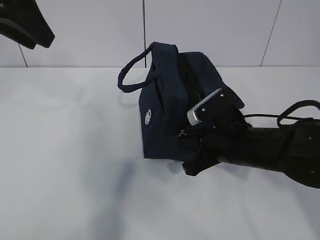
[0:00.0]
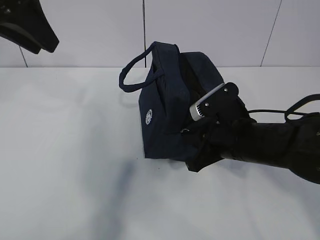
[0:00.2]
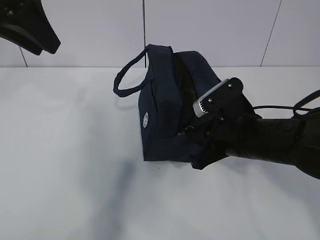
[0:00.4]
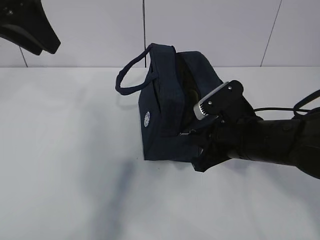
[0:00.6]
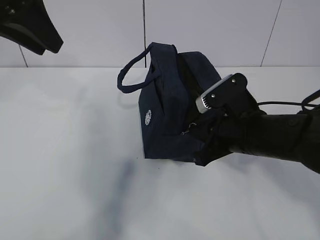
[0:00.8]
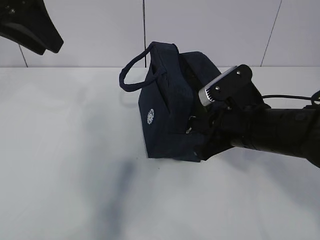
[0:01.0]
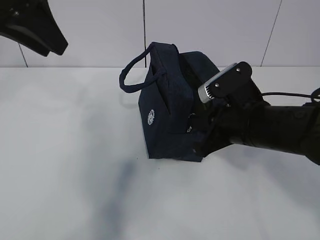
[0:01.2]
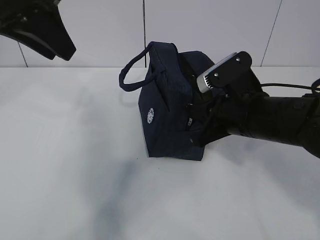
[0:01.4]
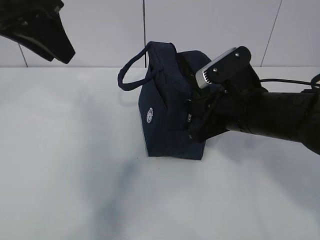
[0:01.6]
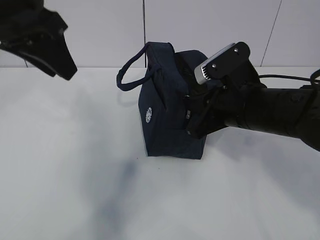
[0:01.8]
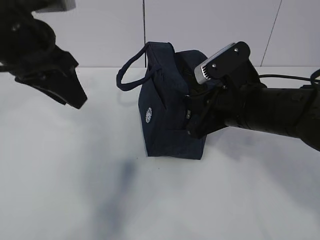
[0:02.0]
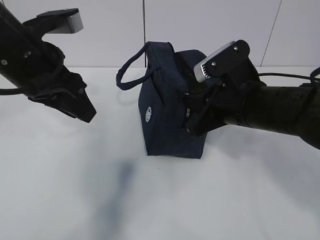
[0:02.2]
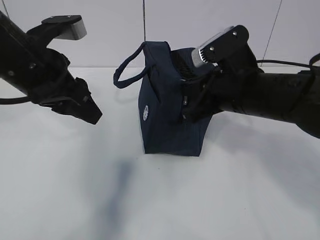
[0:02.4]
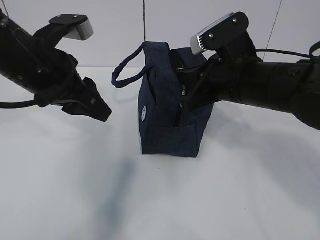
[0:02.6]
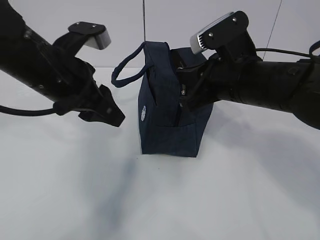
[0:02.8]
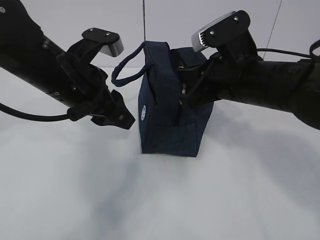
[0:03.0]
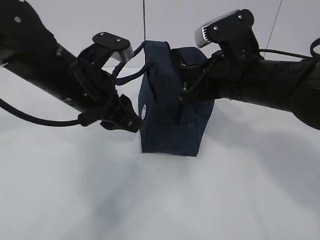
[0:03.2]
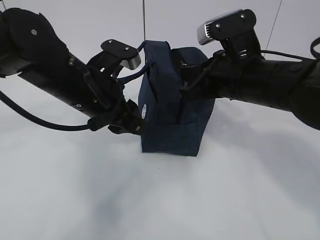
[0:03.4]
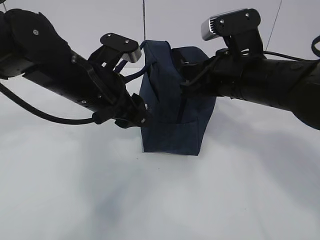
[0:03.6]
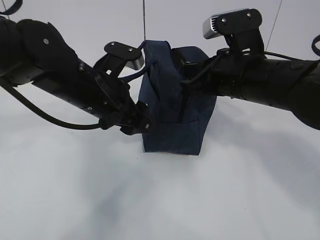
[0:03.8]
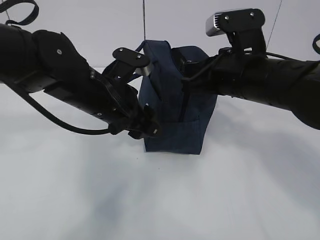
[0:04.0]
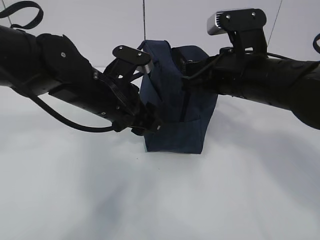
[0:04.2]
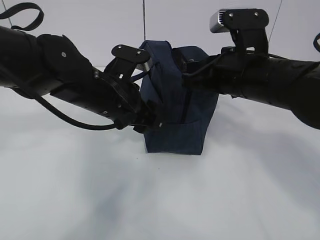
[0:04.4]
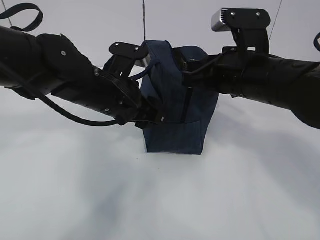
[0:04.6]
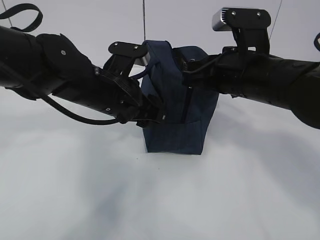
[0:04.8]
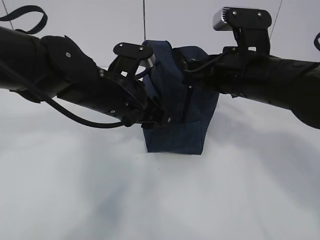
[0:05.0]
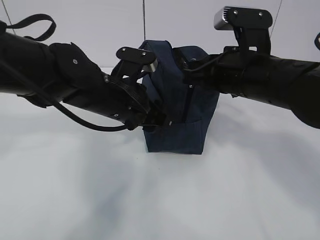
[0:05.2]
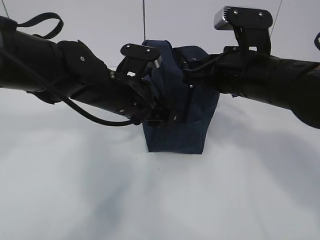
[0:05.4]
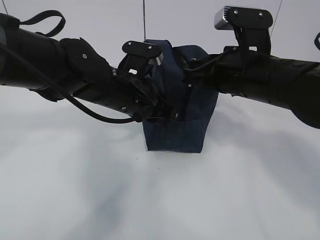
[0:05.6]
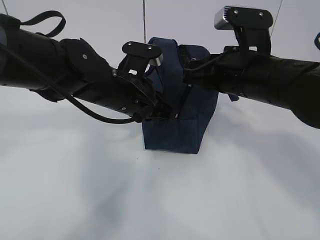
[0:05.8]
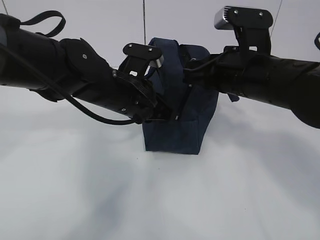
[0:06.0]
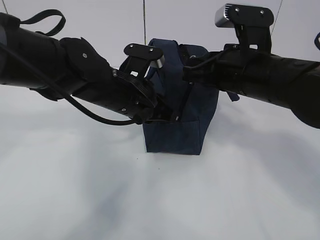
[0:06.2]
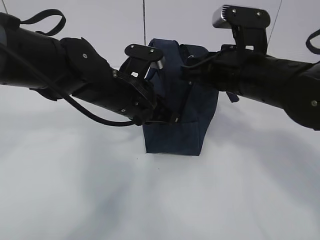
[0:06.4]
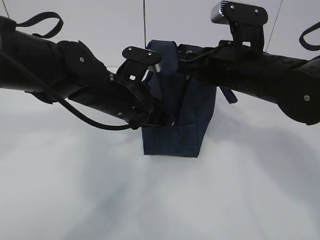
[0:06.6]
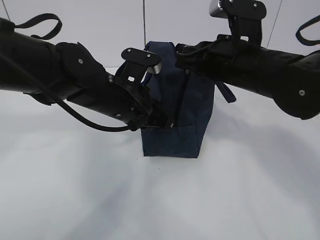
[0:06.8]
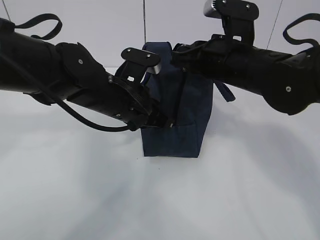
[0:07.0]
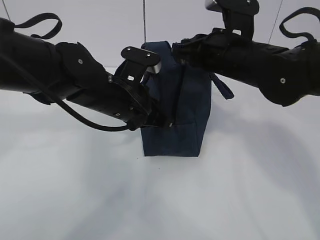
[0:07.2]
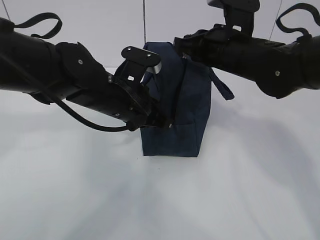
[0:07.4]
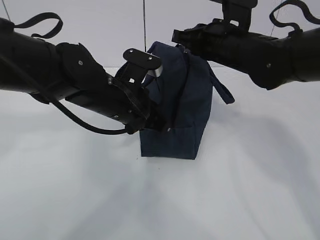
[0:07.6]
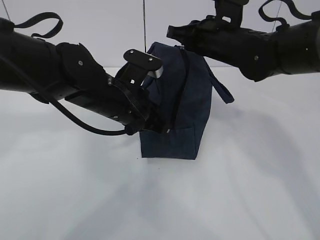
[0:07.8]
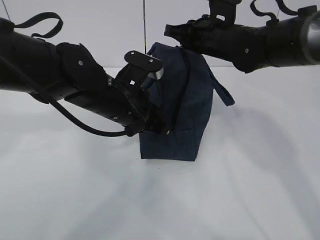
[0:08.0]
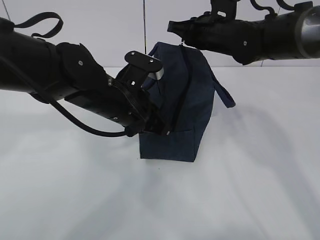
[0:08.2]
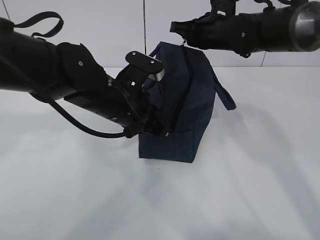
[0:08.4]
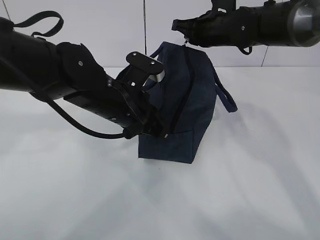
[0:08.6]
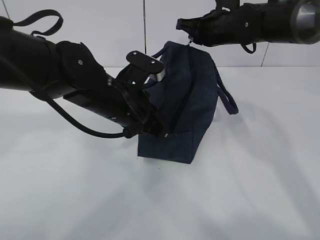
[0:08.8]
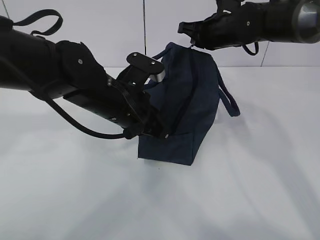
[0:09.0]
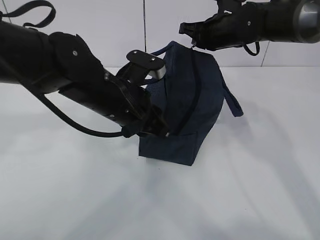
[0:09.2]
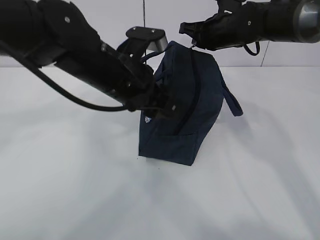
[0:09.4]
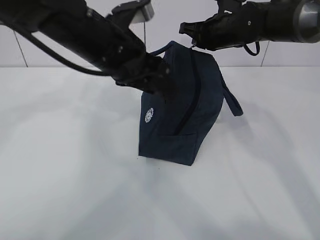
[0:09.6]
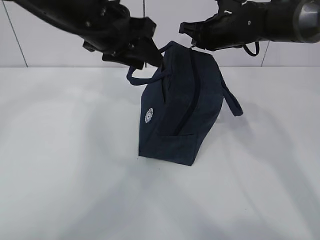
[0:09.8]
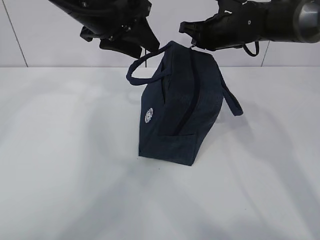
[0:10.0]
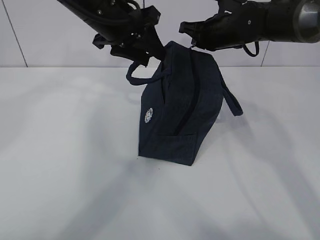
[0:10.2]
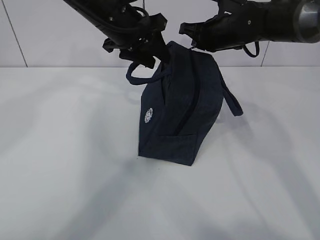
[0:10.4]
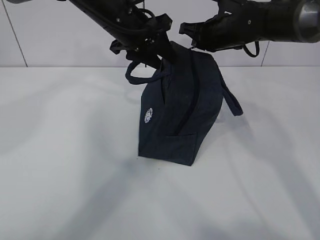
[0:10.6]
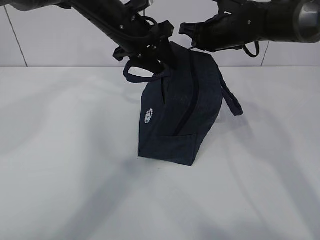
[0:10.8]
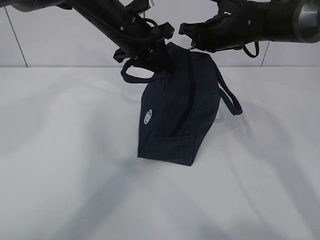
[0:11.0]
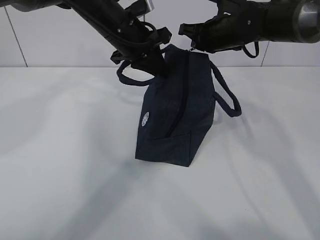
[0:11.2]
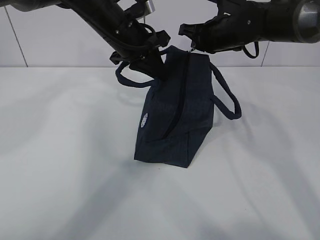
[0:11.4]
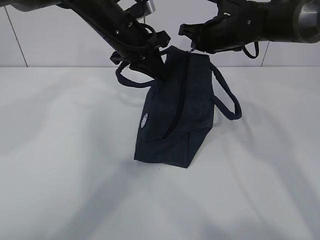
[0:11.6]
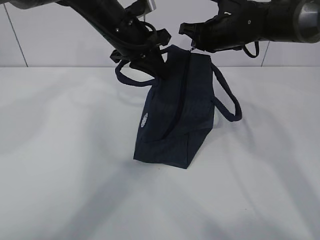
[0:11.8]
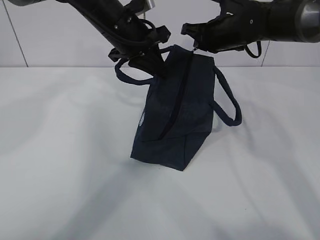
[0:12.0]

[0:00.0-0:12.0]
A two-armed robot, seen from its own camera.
Step, 0:00.0 to 0:05.4: Pull the zipper with your right hand.
Step, 0:05.6 to 0:06.0: Grab the lunch bag with your left hand.
0:00.0 to 0:01.6: The right gripper goes roughly 5 cm upward.
0:01.6 to 0:03.0: The left gripper heads downward, covering some 15 cm.
0:03.0 to 0:04.4: The left gripper moves roughly 5 cm.
0:04.4 to 0:06.0: The left gripper closes up.
0:06.0 to 0:07.6: The right gripper shifts about 10 cm forward.
0:07.6 to 0:09.0: The right gripper heads forward, covering some 10 cm.
0:09.0 to 0:10.4: The left gripper shifts roughly 15 cm forward and upward, and opens its fingers.
0:10.4 to 0:12.0: The left gripper closes.

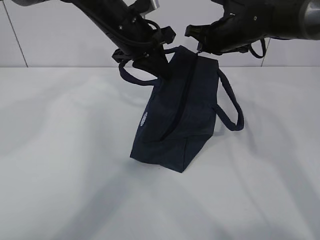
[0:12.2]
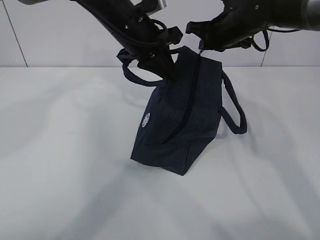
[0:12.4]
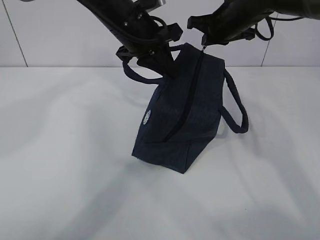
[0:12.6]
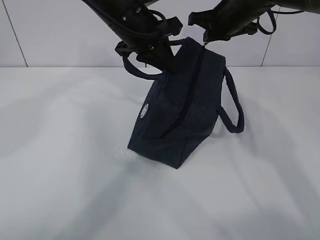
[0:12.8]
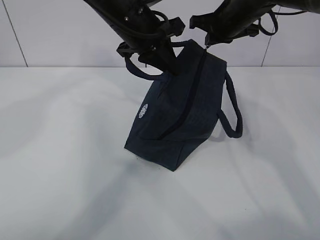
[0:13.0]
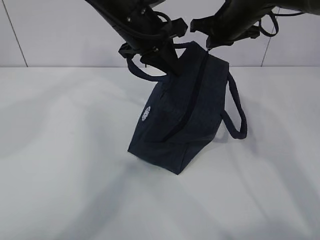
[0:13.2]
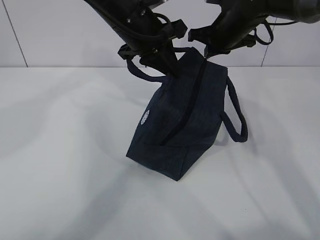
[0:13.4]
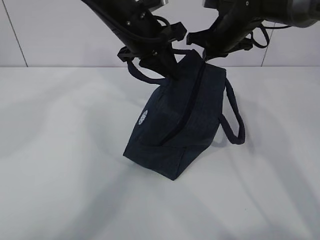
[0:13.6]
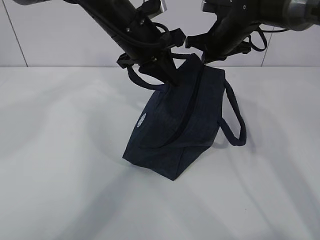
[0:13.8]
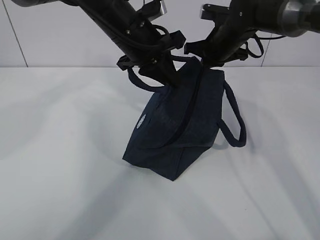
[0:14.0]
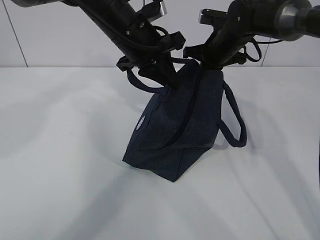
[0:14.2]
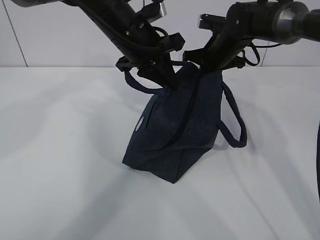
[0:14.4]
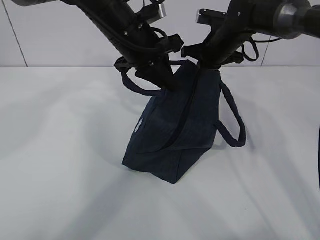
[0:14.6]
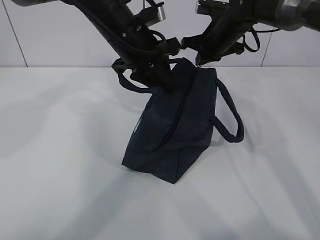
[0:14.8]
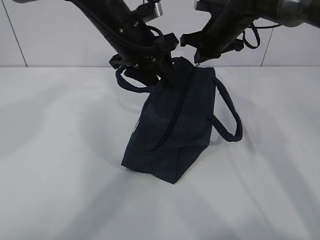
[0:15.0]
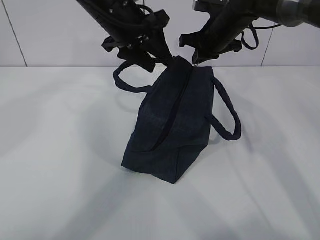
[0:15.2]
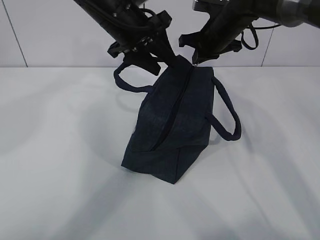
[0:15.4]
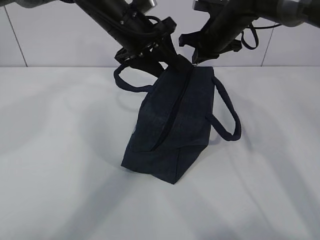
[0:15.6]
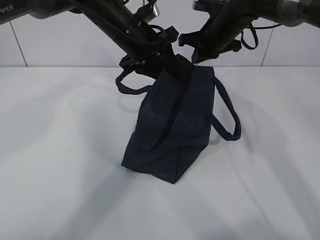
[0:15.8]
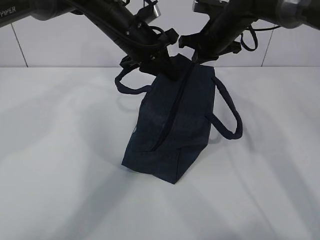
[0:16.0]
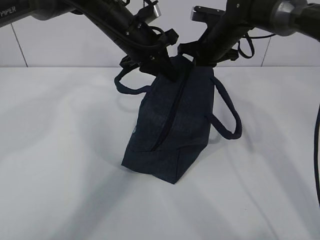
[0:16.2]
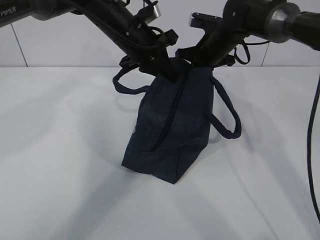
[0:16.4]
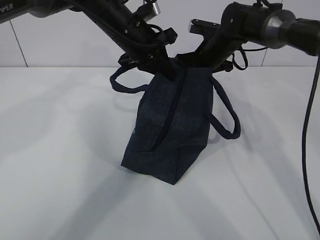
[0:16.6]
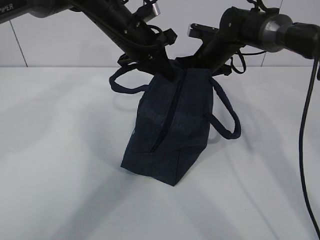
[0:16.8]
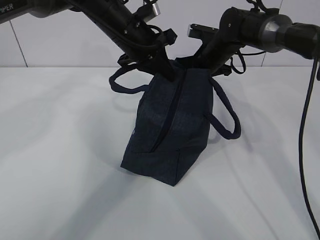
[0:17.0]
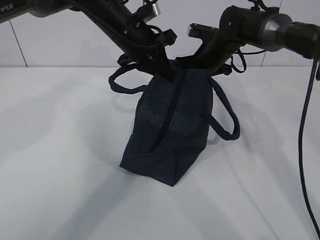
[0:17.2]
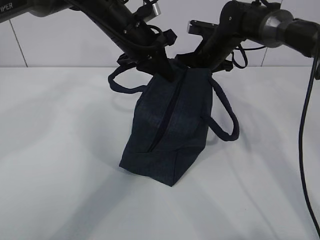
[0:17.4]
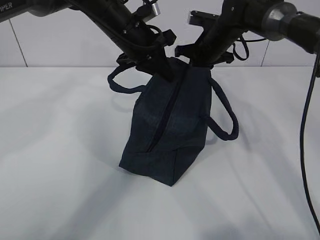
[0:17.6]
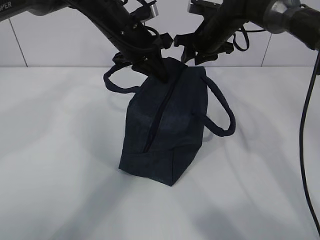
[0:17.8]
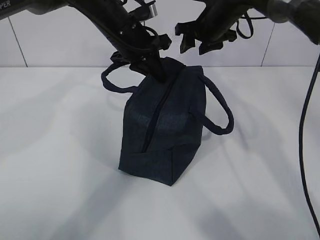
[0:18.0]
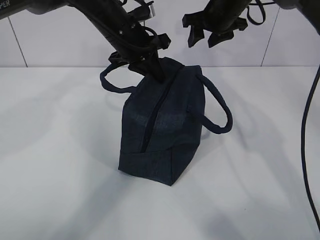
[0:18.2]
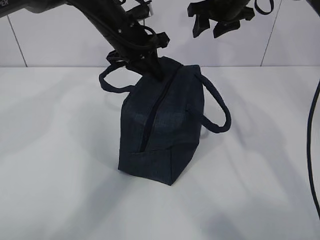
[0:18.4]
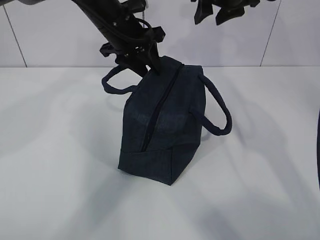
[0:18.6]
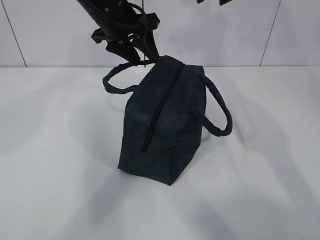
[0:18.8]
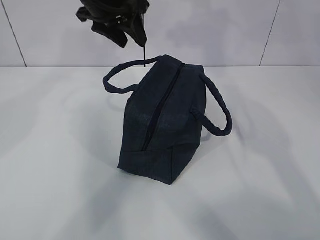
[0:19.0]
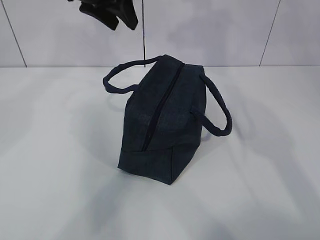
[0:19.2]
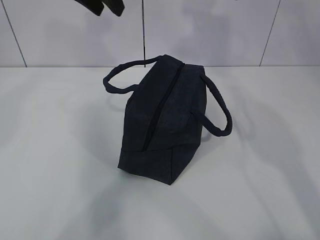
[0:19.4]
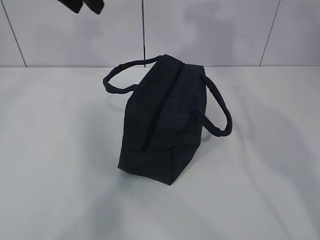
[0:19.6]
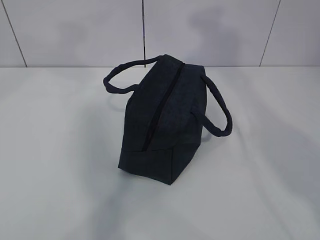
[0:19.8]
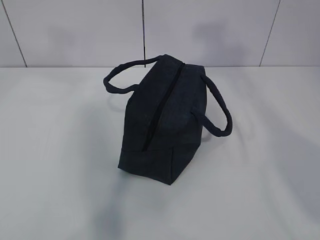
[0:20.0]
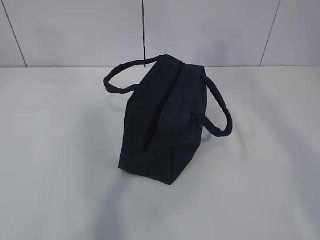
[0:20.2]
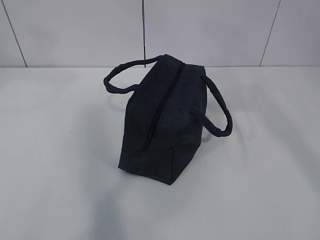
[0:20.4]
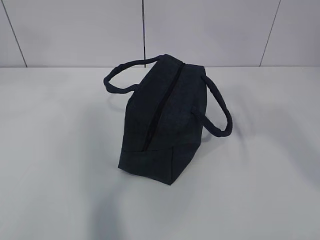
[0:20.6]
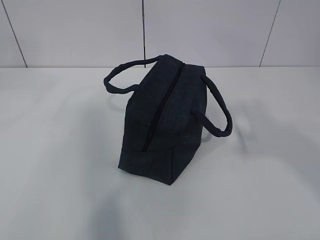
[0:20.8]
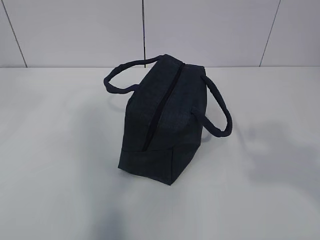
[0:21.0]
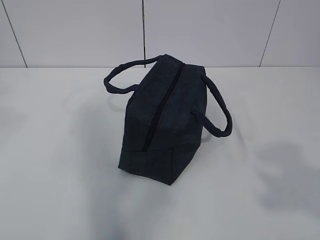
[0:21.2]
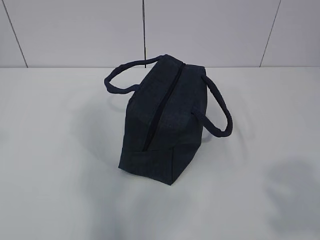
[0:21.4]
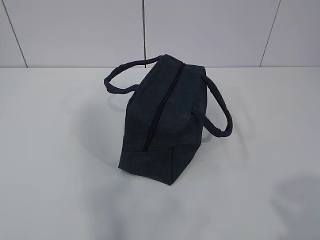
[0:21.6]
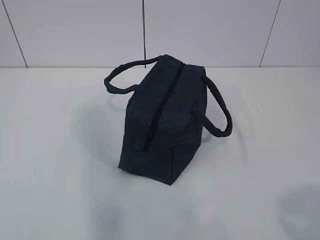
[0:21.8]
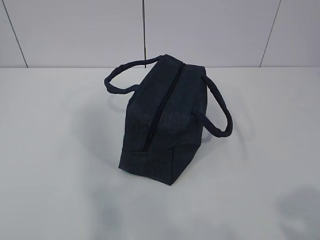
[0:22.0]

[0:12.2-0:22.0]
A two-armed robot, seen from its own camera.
0:12.2 to 0:13.6: The grippers move only a little.
0:13.6 to 0:15.0: The left gripper opens its fingers.
0:15.0 to 0:16.4: The left gripper moves roughly 5 cm, and closes.
0:16.4 to 0:17.8: The right gripper opens.
0:17.8 to 0:19.2: The right gripper moves upward, roughly 20 cm; the left gripper heads upward, covering about 10 cm, and opens.
0:19.2 to 0:20.6: The left gripper moves backward, upward and to the left, roughly 25 cm; the right gripper shifts about 35 cm backward.
0:20.6 to 0:22.0: The right gripper goes roughly 20 cm backward and downward, while the left gripper is displaced backward, downward and to the left by about 30 cm.
